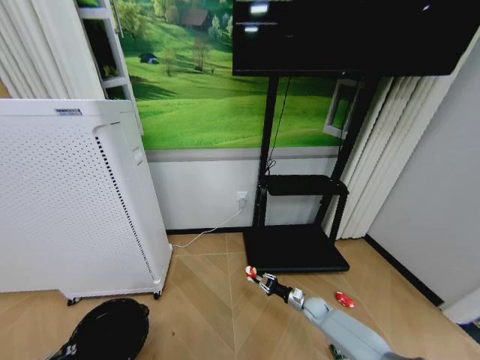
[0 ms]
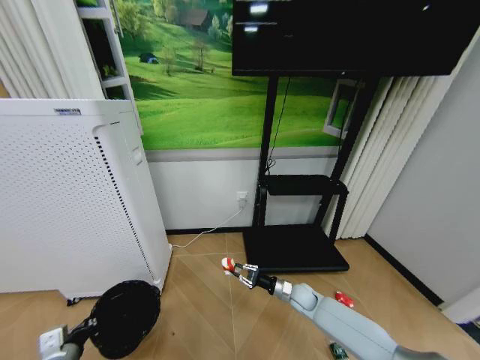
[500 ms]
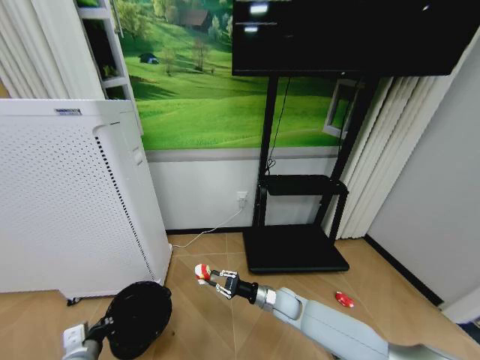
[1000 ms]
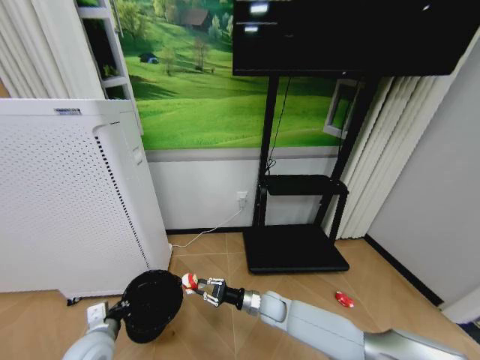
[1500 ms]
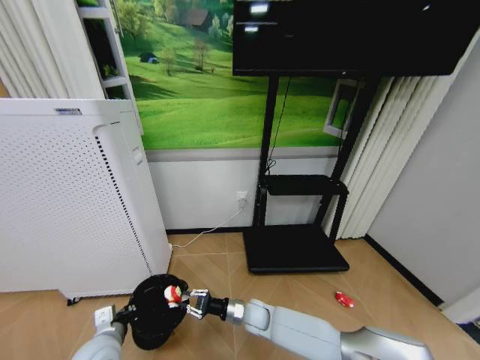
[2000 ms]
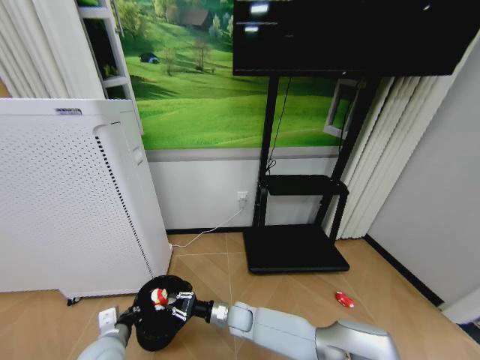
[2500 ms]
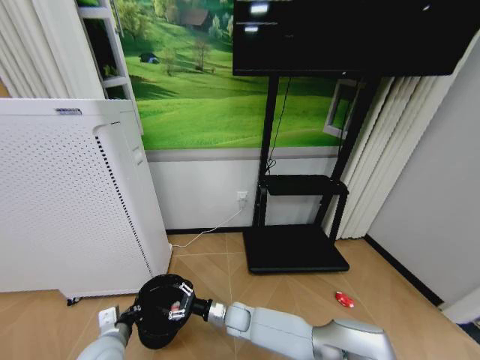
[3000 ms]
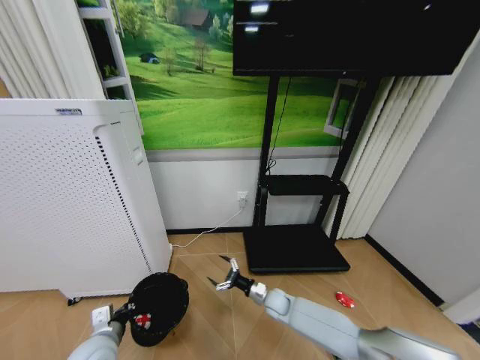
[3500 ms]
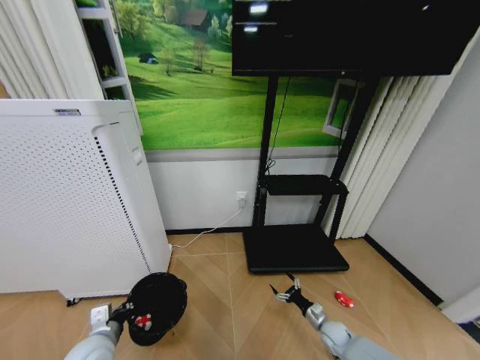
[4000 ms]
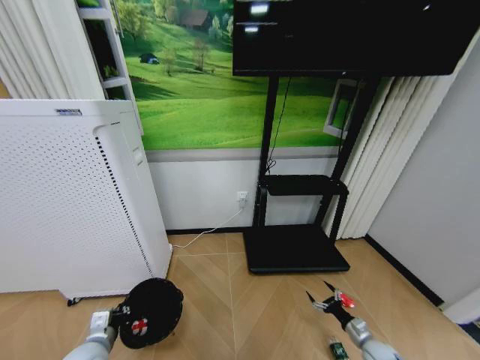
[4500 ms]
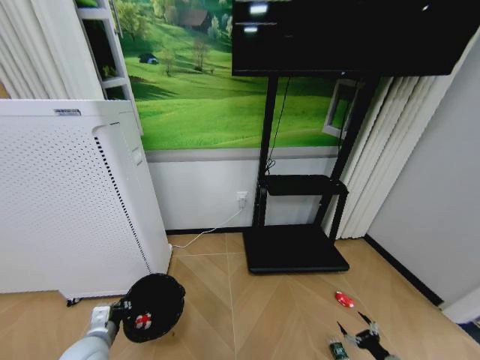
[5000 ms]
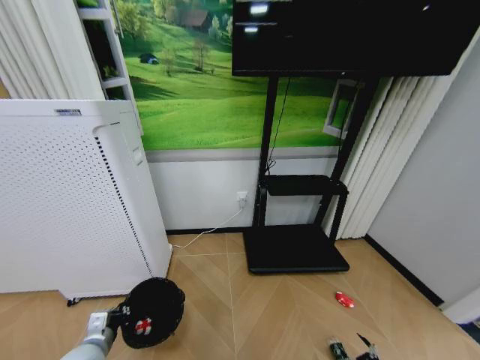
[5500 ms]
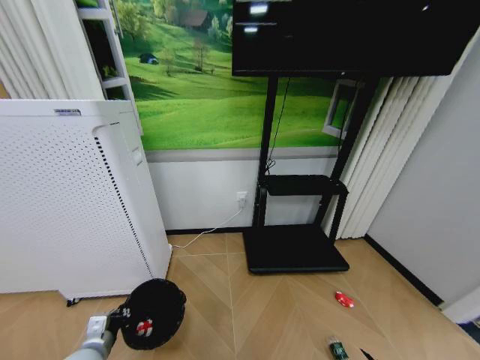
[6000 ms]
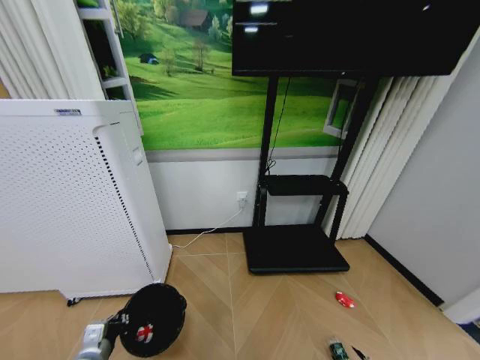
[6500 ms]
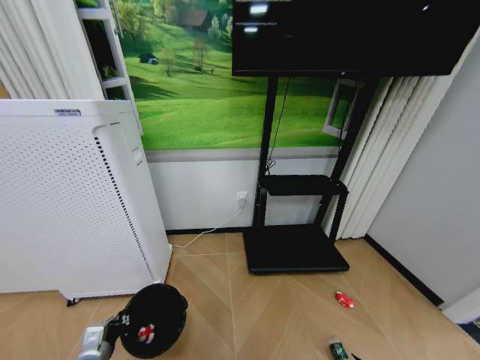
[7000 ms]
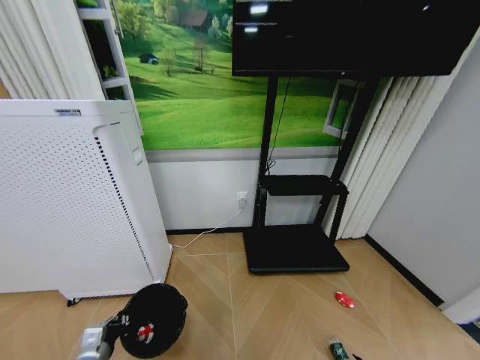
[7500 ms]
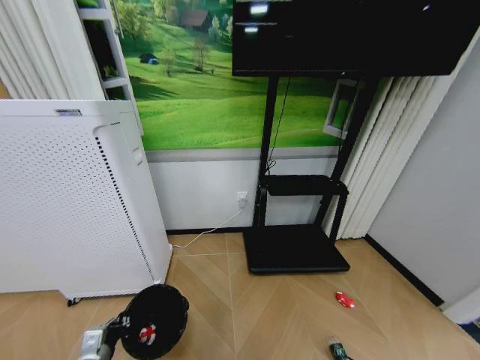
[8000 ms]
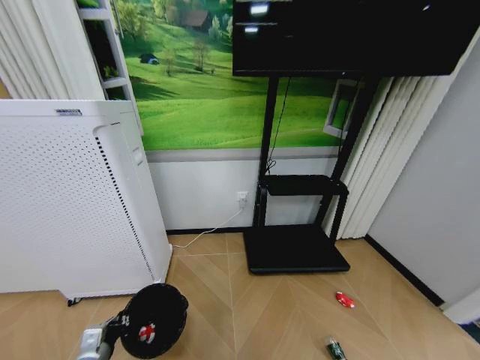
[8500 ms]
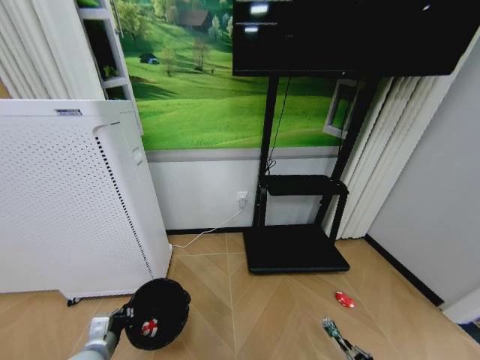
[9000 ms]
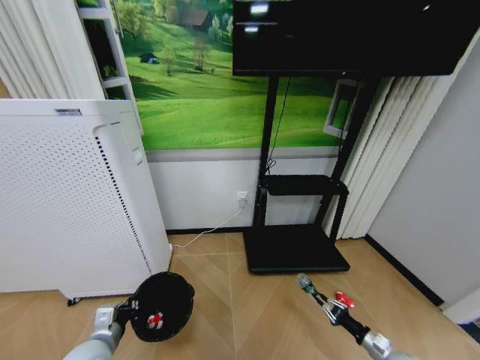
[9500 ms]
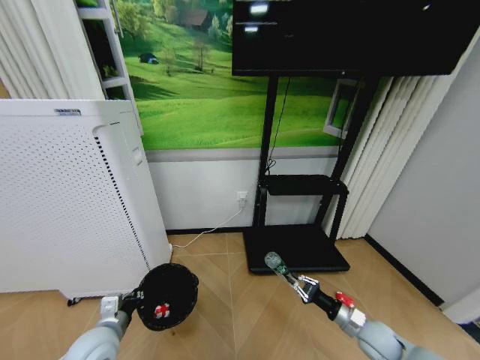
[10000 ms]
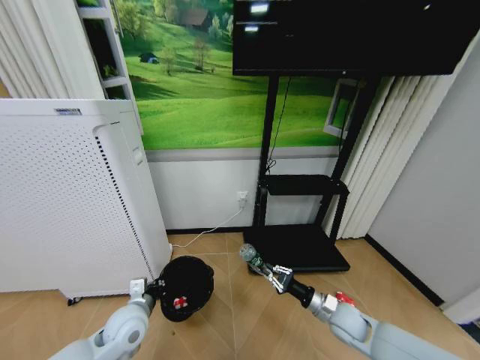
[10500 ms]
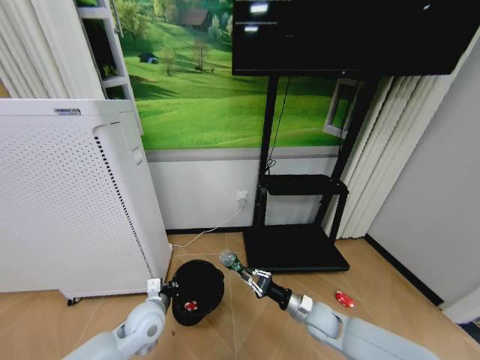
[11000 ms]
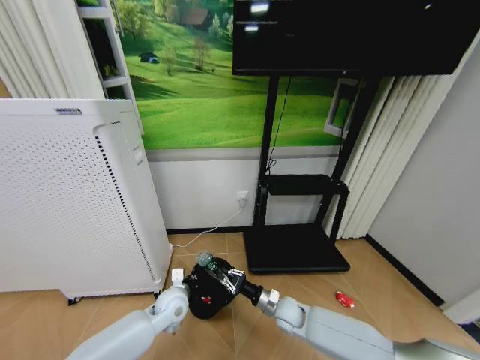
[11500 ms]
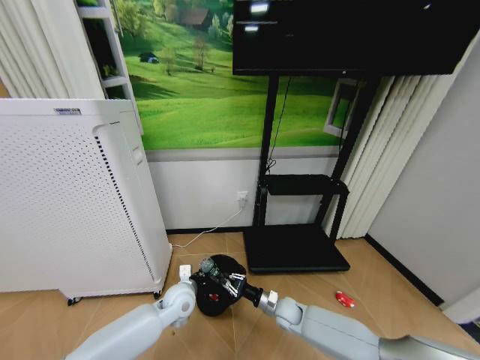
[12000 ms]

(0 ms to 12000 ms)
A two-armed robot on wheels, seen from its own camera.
Task of the whole recording: Pick up the trash bin and place the garbage on the floor into it.
0 ms - 2000 ms: The right gripper travels to the left by roughly 25 cm; the left gripper heads forward and to the right, covering roughly 15 cm.
2000 ms - 4000 ms: The right gripper heads to the right, covering about 30 cm, and opens up.
4000 ms - 6000 ms: The right gripper shifts some 30 cm backward and to the right.
6000 ms - 8000 ms: The grippers make only small movements.
8000 ms - 10000 ms: The right gripper travels upward, forward and to the left by approximately 35 cm, and closes its fingers. Meanwhile the left gripper heads forward, covering some 5 cm.
10000 ms - 12000 ms: The right gripper goes about 20 cm to the left and forward; the left gripper moves to the right and forward, roughly 20 cm.

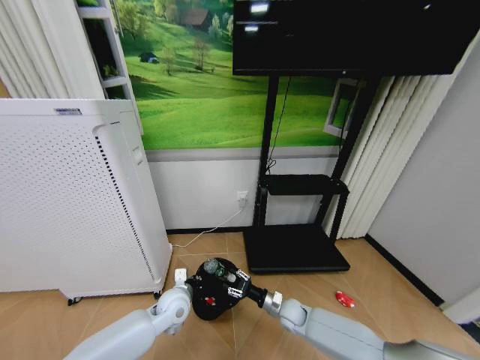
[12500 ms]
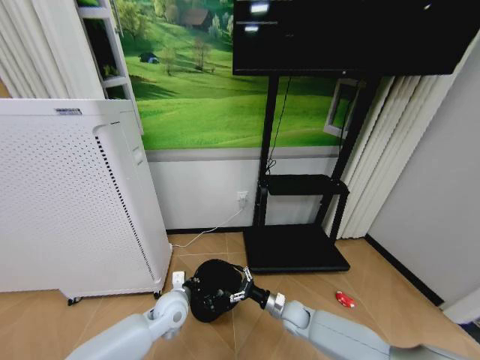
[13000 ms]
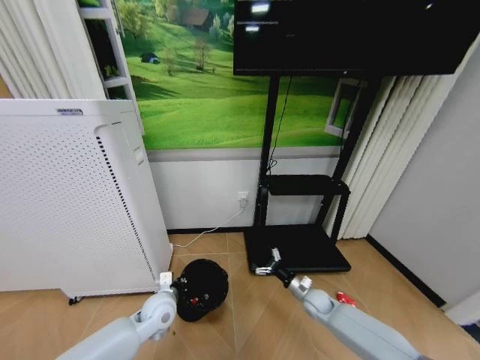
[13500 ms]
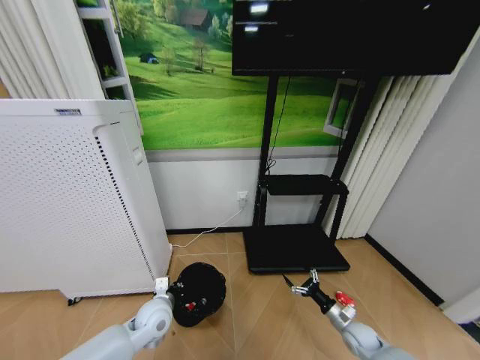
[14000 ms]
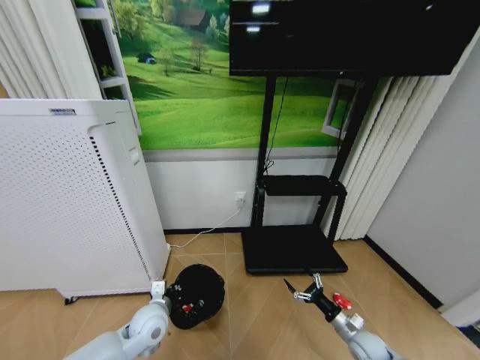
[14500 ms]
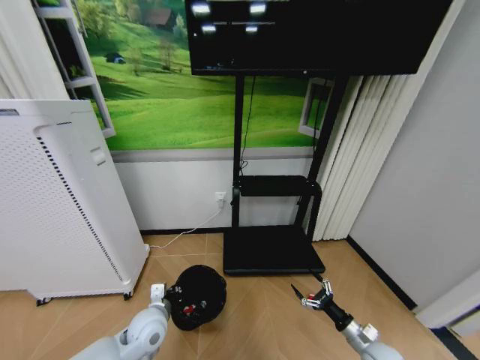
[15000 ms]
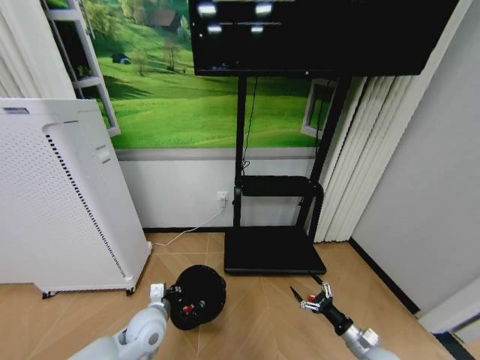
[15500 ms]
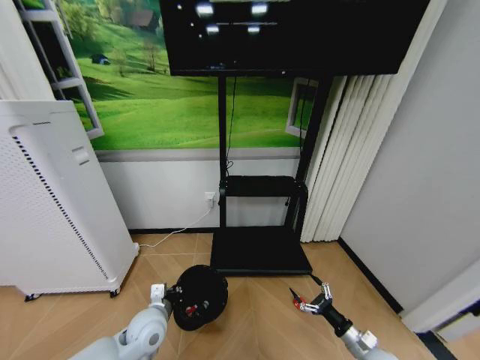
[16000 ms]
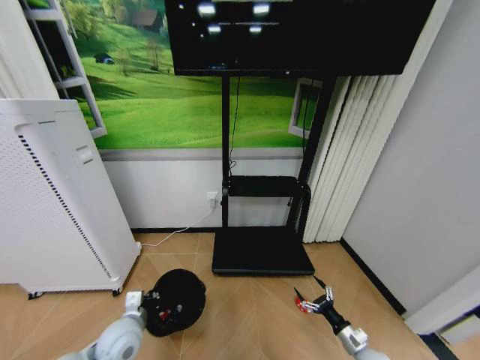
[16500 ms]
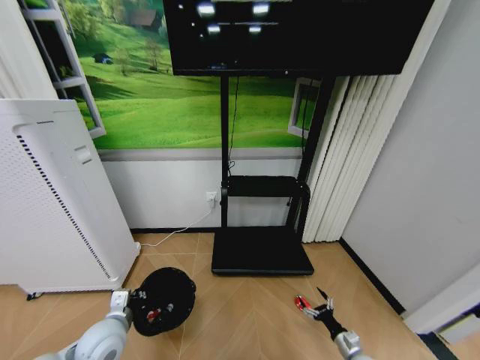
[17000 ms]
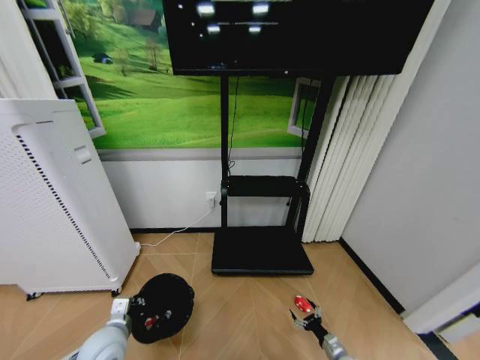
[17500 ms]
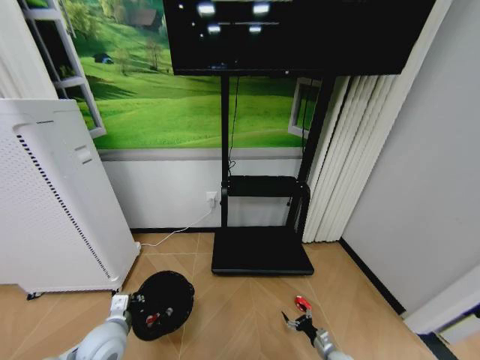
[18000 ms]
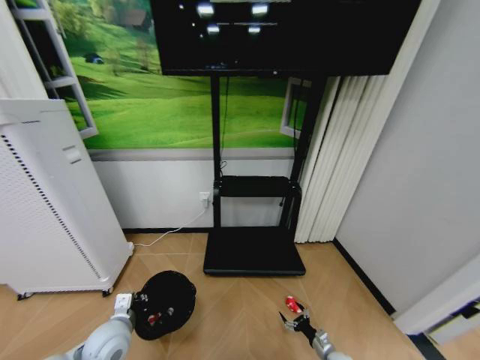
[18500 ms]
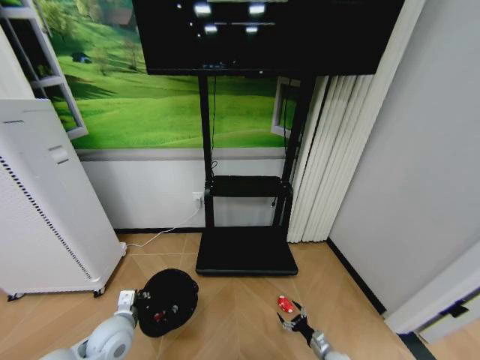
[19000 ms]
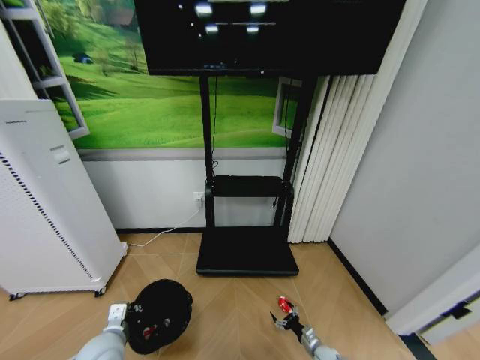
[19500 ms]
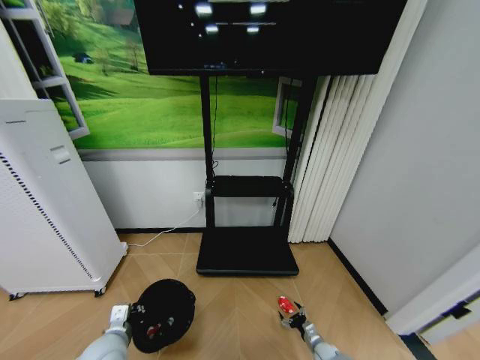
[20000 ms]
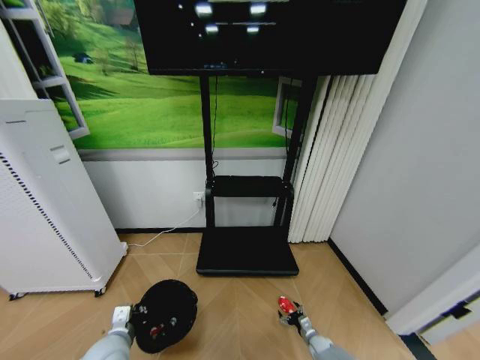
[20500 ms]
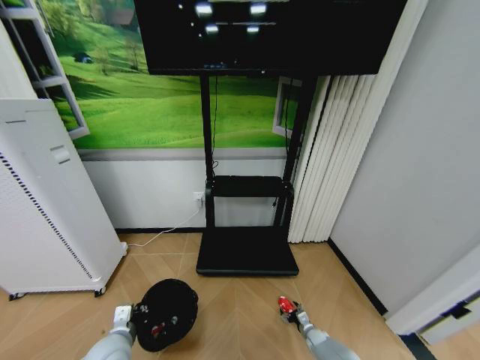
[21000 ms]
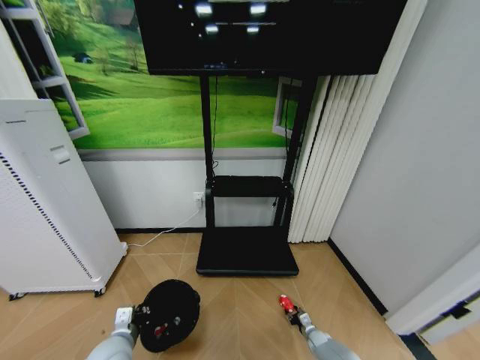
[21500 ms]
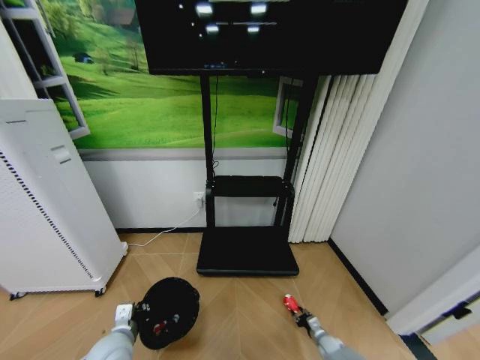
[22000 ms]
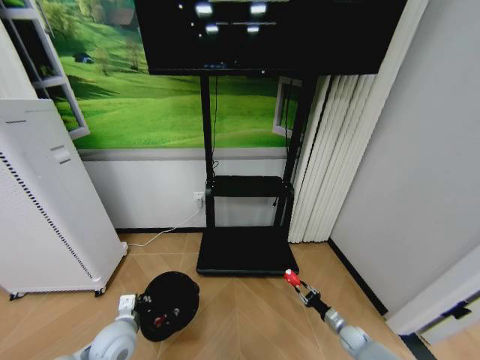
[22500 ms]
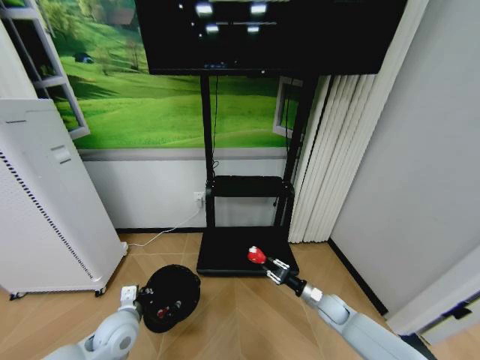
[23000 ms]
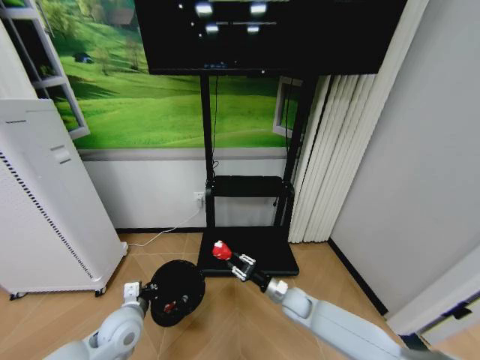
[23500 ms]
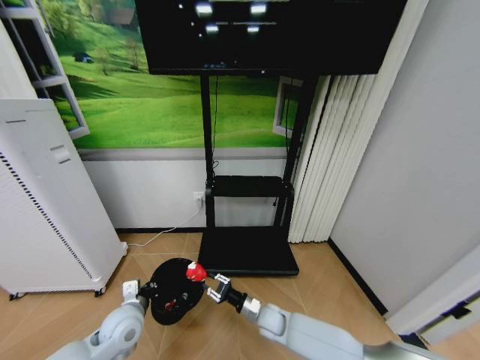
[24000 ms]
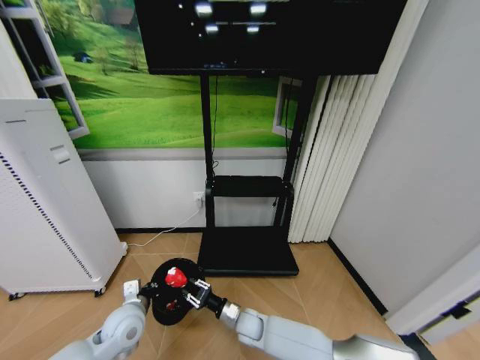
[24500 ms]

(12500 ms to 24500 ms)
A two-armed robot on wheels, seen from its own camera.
Task of the whole recording: Pick up the trash bin and place the garbage on the floor into it.
12500 ms - 14500 ms: The right gripper shifts roughly 20 cm to the right and backward, and opens up, while the left gripper is displaced to the left by about 5 cm.
14500 ms - 16500 ms: The left gripper is displaced to the left by about 5 cm. Meanwhile the right gripper ends up about 5 cm from where it was.
16500 ms - 18500 ms: The right gripper shifts about 15 cm downward.
18500 ms - 20500 ms: The right gripper moves forward, roughly 5 cm.
20500 ms - 22500 ms: The right gripper is displaced to the right and upward by about 15 cm, and closes its fingers.
22500 ms - 24500 ms: The right gripper shifts roughly 40 cm to the left.

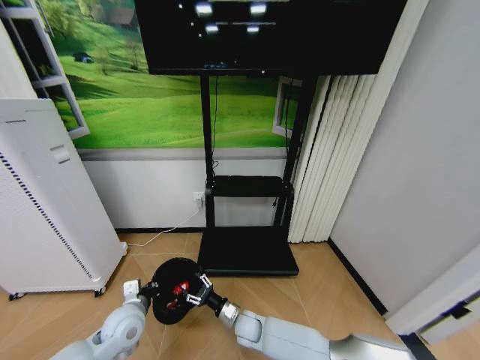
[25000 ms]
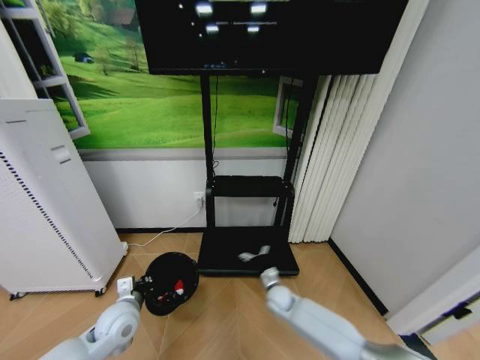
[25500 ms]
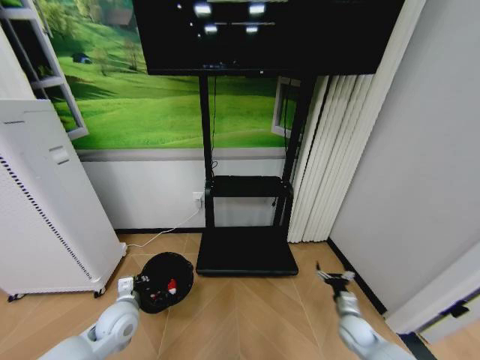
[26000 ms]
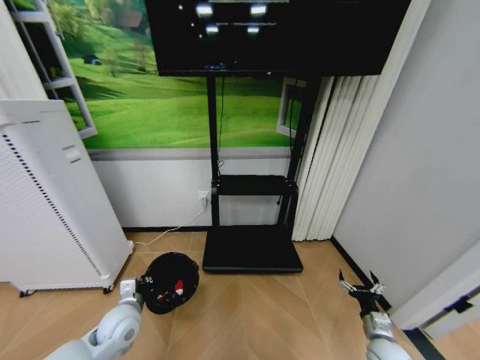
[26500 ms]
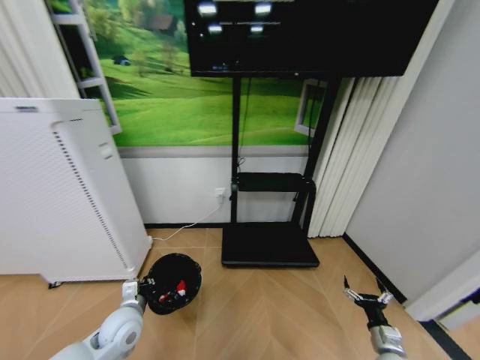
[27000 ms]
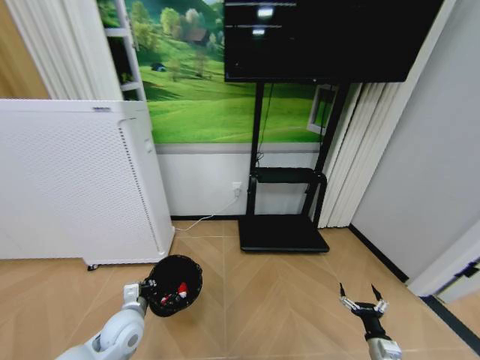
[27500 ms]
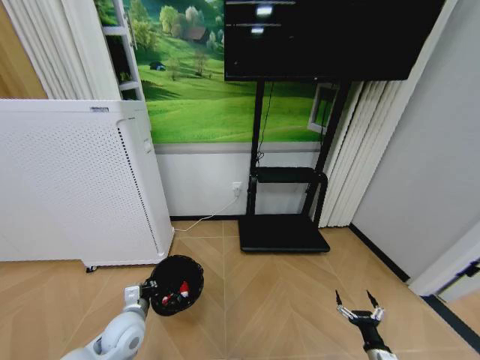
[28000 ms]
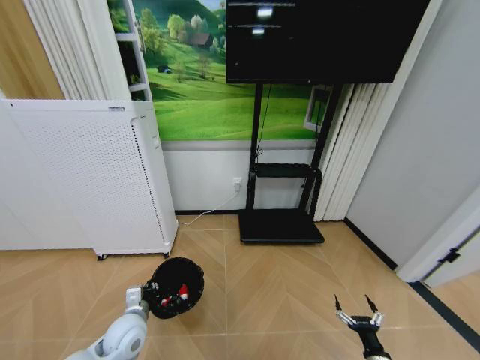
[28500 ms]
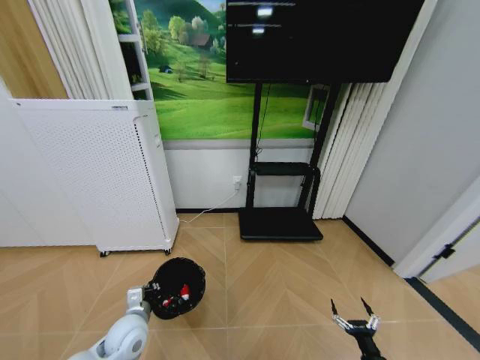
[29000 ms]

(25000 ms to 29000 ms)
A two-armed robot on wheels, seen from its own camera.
Task of the whole recording: Pick up the trash bin and place the garbage on the floor into it.
25000 ms - 27000 ms: The right gripper heads to the right, covering approximately 40 cm, and opens up.
27000 ms - 29000 ms: The right gripper heads backward, covering about 5 cm.
